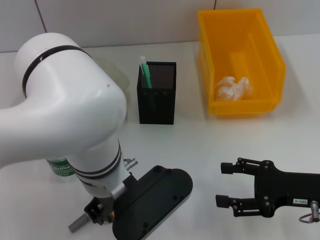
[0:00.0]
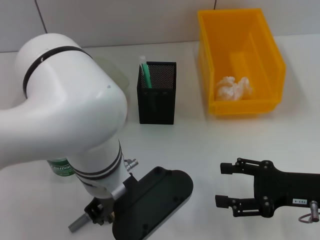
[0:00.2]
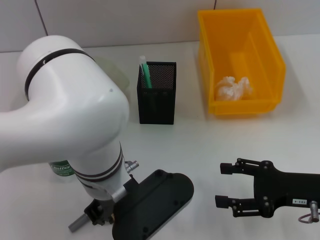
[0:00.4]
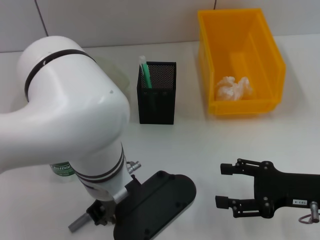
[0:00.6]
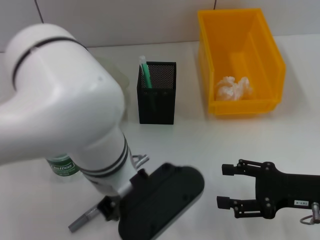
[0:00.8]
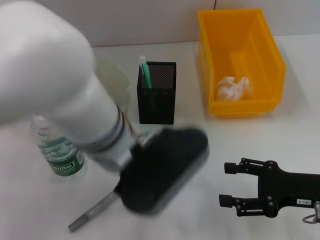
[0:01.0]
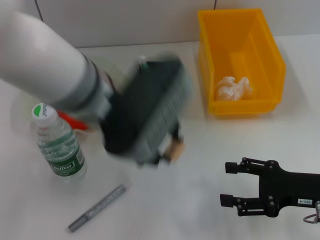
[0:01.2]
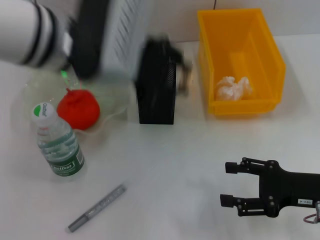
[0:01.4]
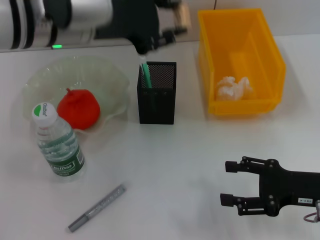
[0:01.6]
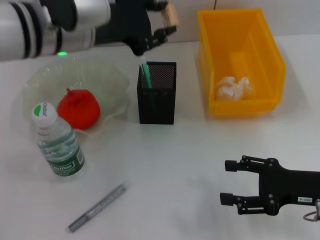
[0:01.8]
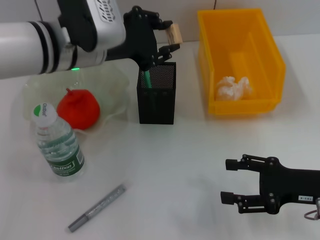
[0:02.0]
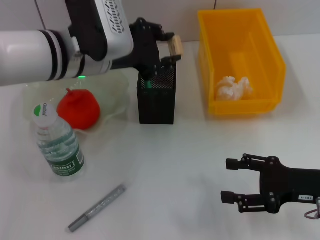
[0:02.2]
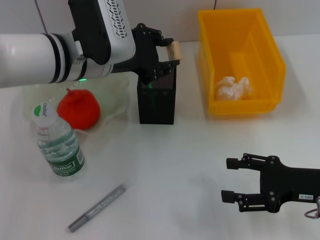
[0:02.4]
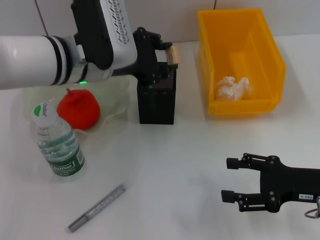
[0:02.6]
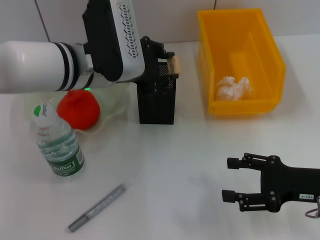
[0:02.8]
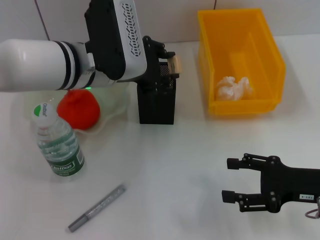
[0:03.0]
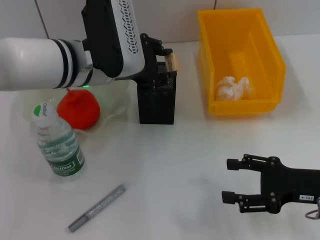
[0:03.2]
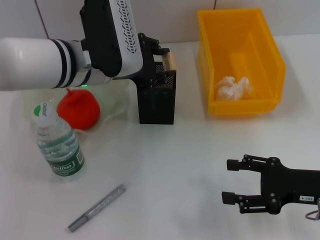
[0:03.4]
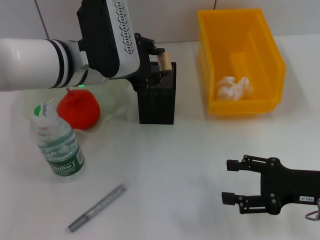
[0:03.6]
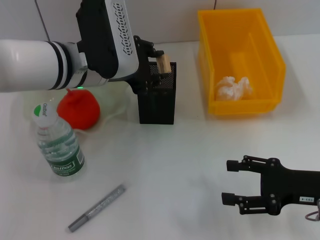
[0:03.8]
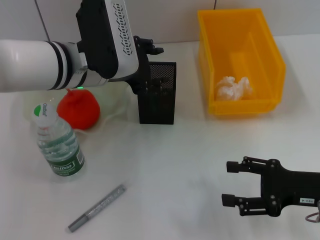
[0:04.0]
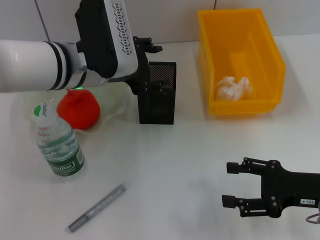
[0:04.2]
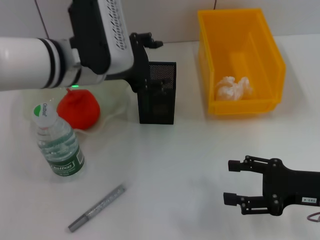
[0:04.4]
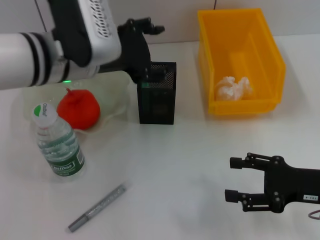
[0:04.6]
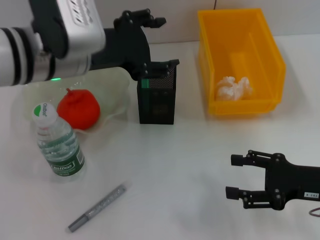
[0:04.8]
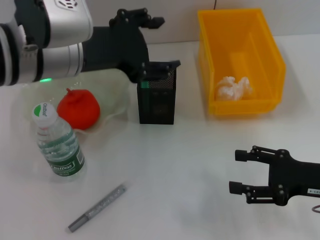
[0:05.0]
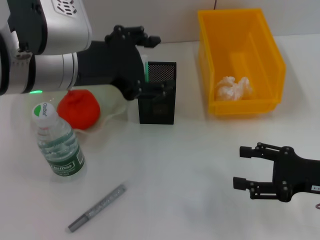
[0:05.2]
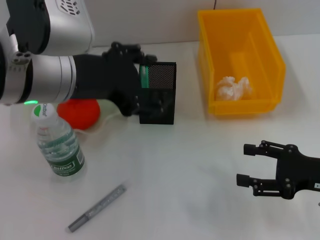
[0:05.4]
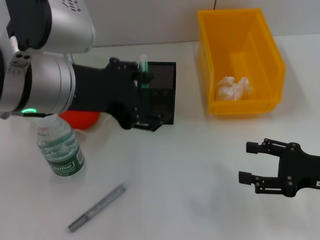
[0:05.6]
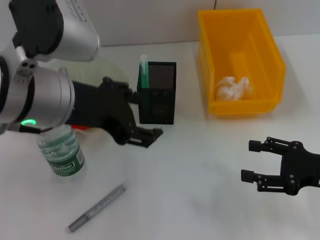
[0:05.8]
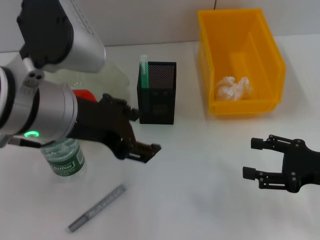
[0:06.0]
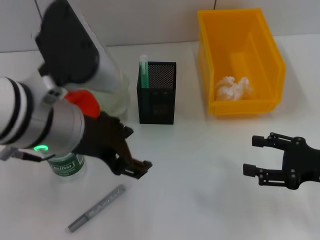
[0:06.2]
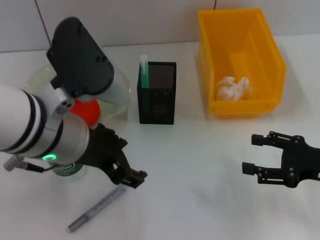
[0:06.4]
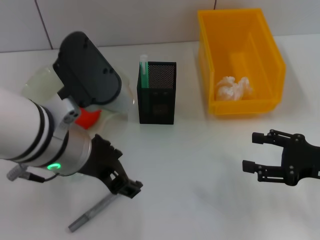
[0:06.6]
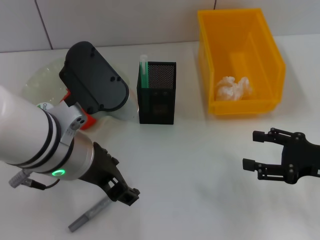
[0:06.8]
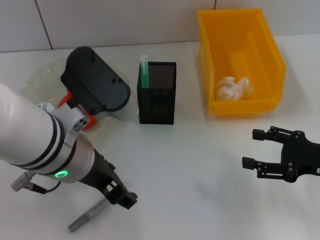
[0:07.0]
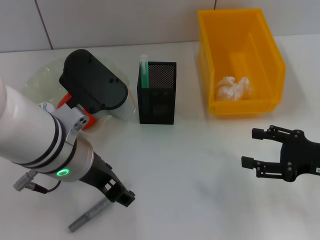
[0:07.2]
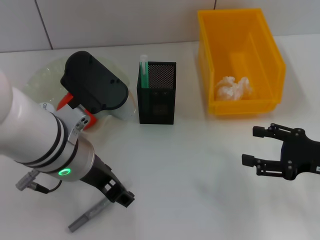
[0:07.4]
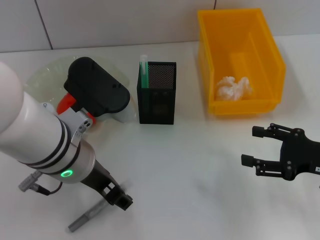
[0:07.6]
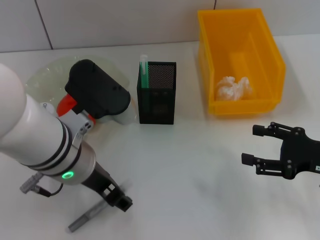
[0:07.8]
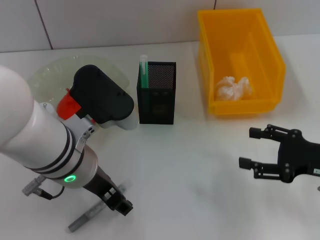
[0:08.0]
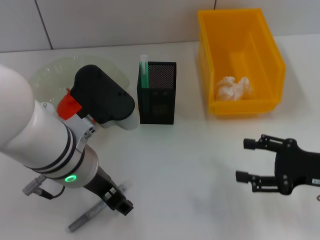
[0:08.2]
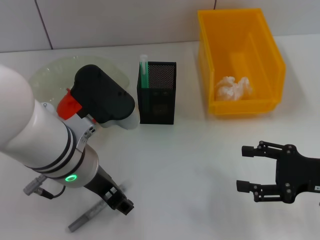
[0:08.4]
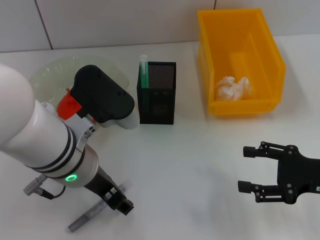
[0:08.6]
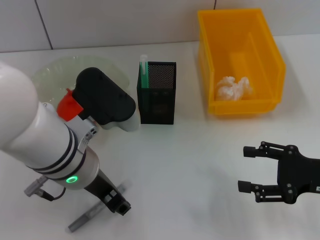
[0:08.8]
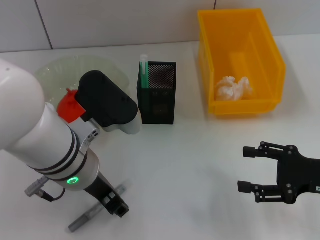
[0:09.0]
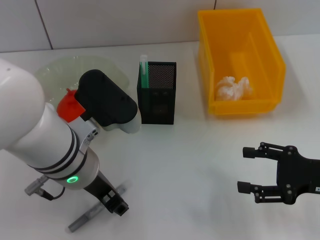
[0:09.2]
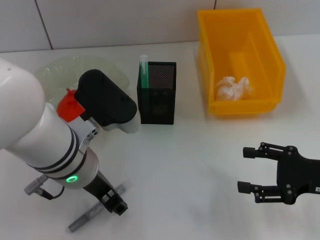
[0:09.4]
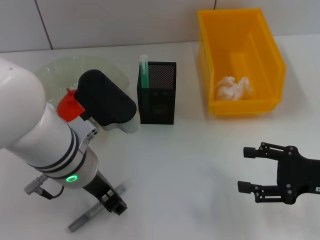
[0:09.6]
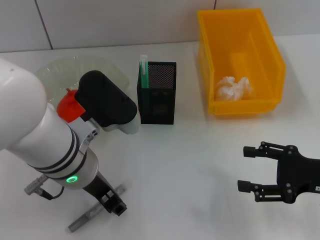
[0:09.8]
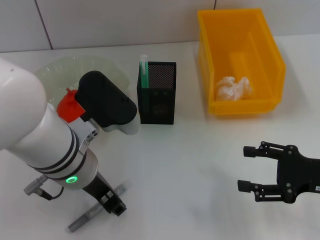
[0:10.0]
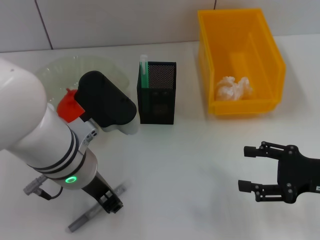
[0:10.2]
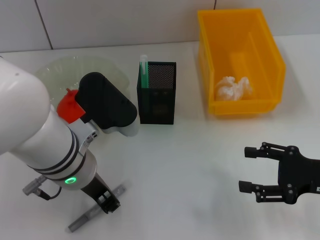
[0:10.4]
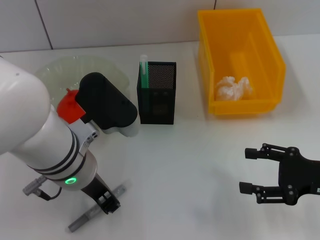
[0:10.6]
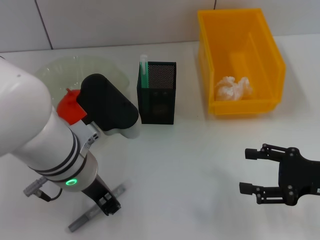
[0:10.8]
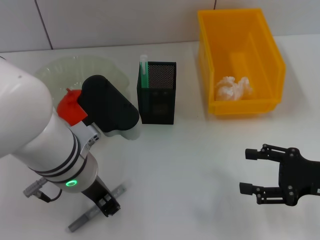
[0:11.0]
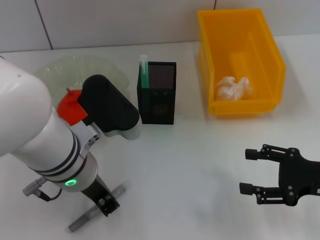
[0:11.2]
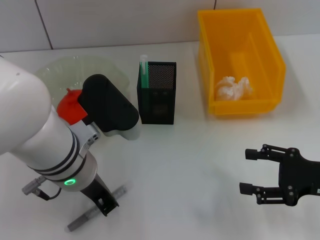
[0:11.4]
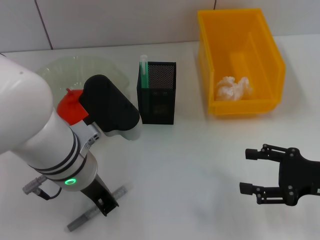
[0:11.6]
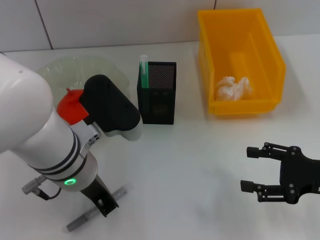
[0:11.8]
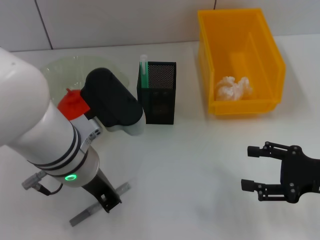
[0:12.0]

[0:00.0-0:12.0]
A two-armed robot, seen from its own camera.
Step, 0:00.2 to 0:04.0: Place the eraser into the pen holder with the left hand.
Step, 0:04.2 to 0:11.4: Grab the gray glue with the left hand.
0:00.0 to 0:01.6: The left gripper is displaced upward, forward and to the left by approximately 15 cm.
0:01.6 to 0:03.0: The left gripper moves downward, roughly 10 cm.
0:03.0 to 0:04.4: The left gripper opens.
0:04.4 to 0:06.0: The left gripper heads backward, covering about 10 cm.
0:06.0 to 0:07.6: The left gripper heads downward, covering approximately 5 cm.
0:07.6 to 0:09.0: There are only small adjustments of the grippers.
0:09.0 to 0:10.4: The two grippers keep their place.
0:10.4 to 0:12.0: The two grippers keep their place.

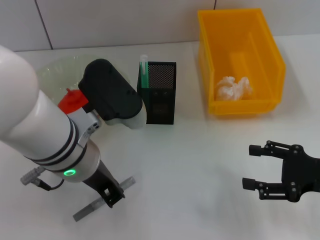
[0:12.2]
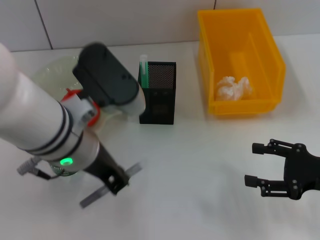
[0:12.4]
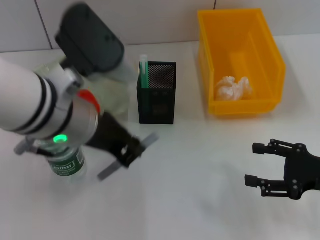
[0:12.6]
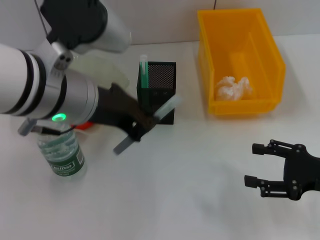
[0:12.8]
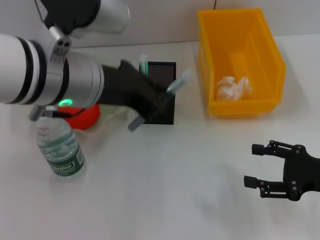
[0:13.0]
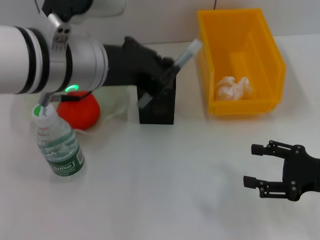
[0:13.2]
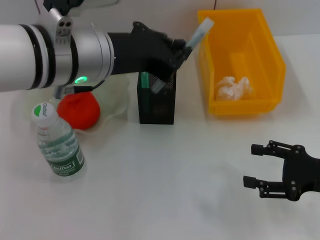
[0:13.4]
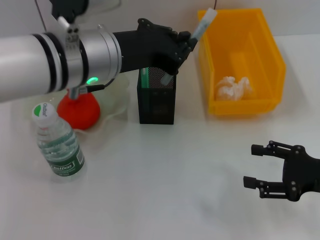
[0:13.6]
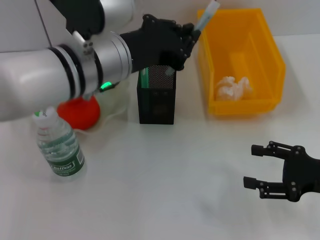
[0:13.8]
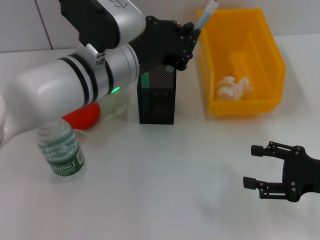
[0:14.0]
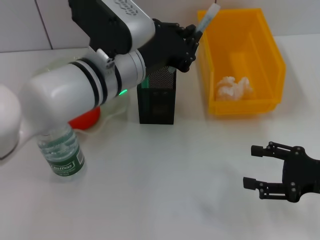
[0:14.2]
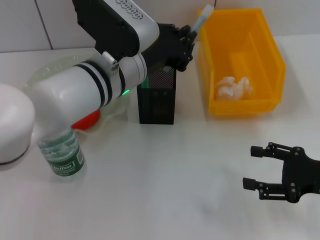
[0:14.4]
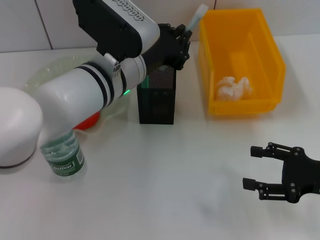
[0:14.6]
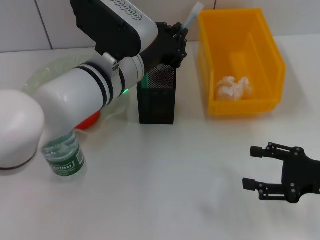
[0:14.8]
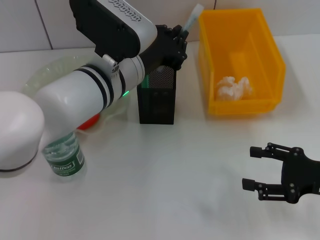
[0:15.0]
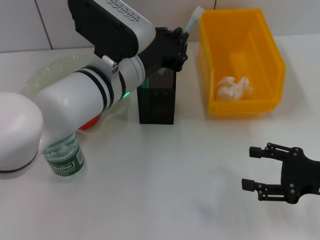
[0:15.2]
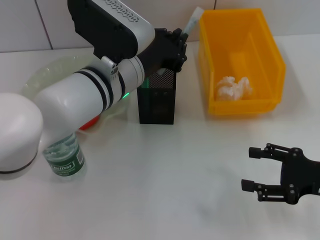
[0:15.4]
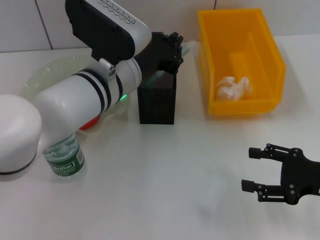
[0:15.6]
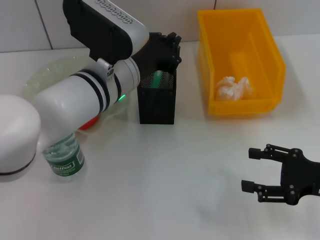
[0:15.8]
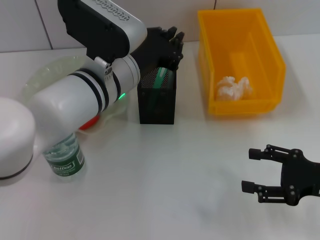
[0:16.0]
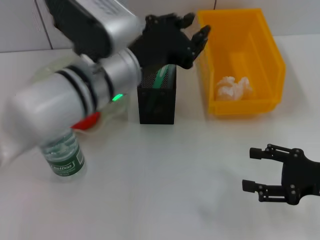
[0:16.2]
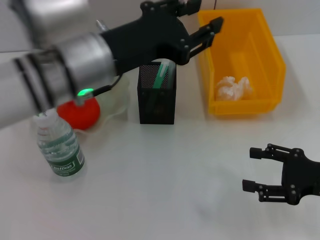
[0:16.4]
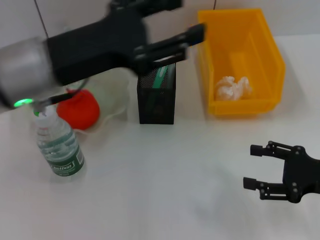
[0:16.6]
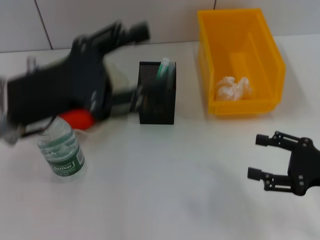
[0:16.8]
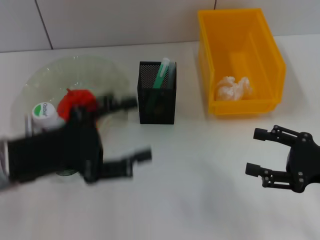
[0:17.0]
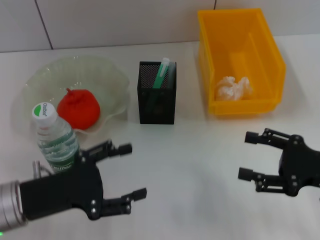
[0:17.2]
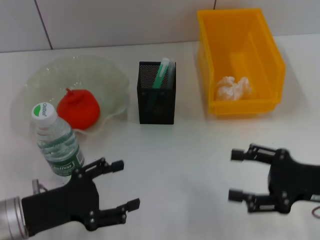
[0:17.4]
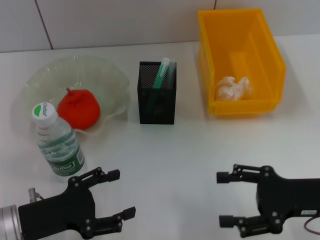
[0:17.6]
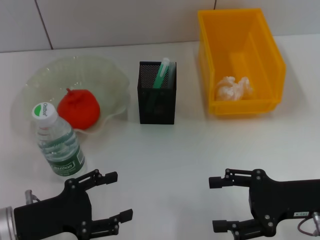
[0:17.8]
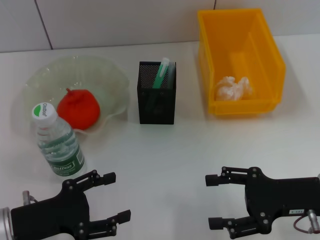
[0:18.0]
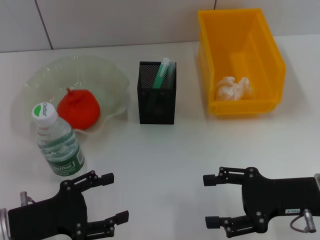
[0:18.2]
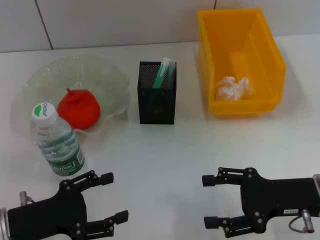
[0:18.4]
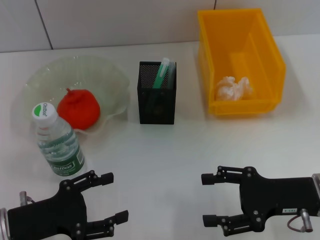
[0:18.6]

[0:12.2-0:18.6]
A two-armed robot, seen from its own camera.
Step, 0:12.2 to 0:15.6: Place the gray glue into the pen holder with the left hand.
0:12.2 to 0:13.8: The left gripper is displaced forward by about 5 cm.
0:13.8 to 0:15.4: The left gripper moves downward, some 5 cm.
0:15.4 to 0:17.0: The left gripper shifts approximately 15 cm to the left and backward, and opens its fingers.
0:17.0 to 0:18.6: The left gripper travels downward and backward by roughly 10 cm; the right gripper travels to the left by approximately 5 cm.
